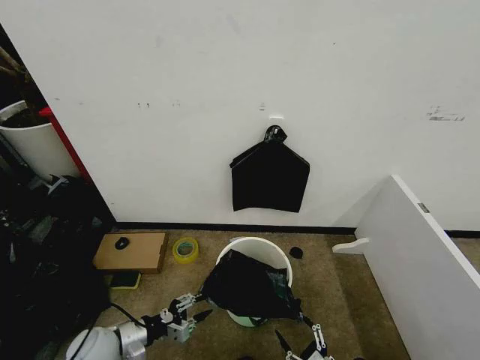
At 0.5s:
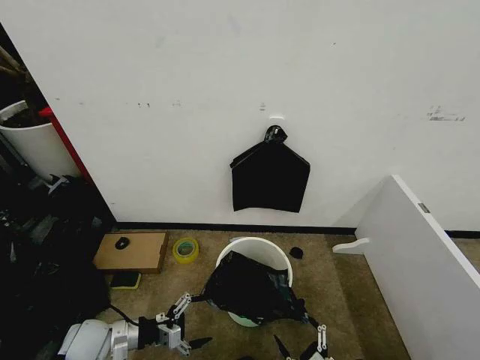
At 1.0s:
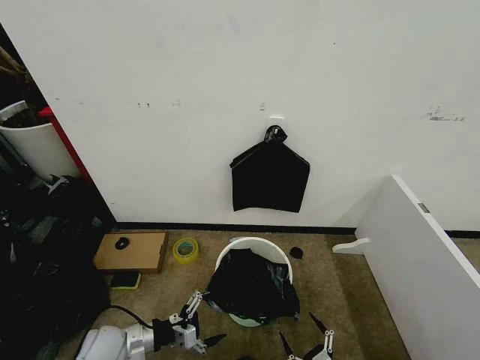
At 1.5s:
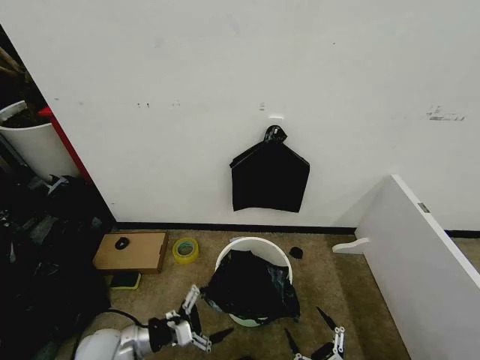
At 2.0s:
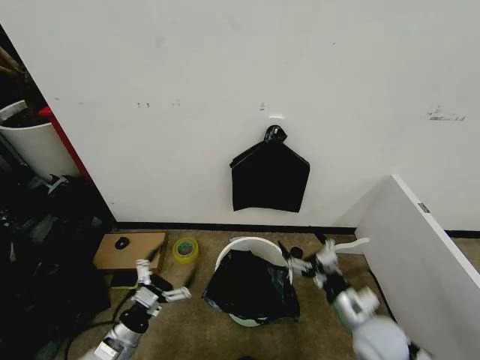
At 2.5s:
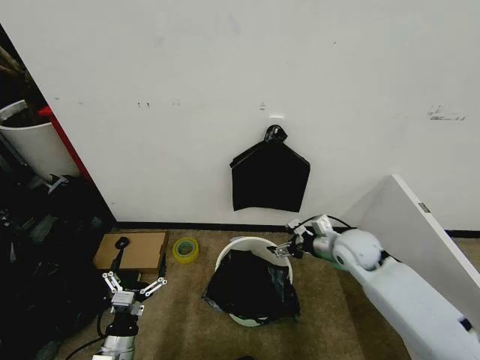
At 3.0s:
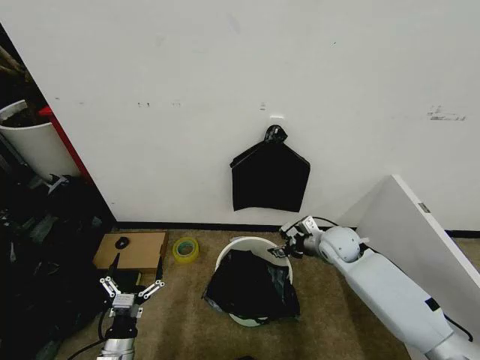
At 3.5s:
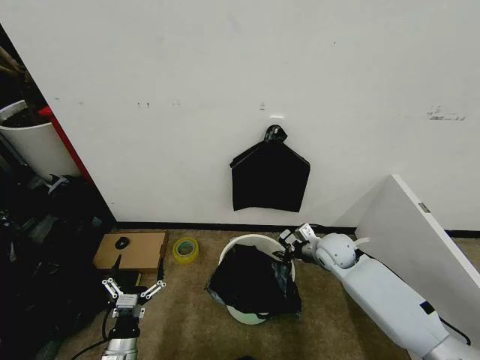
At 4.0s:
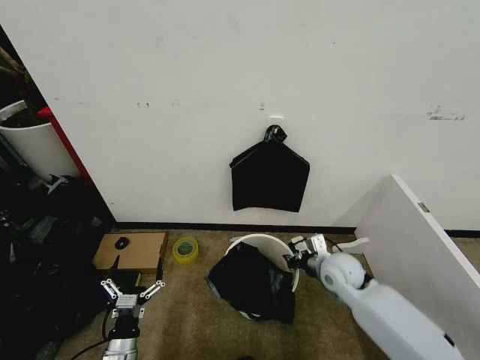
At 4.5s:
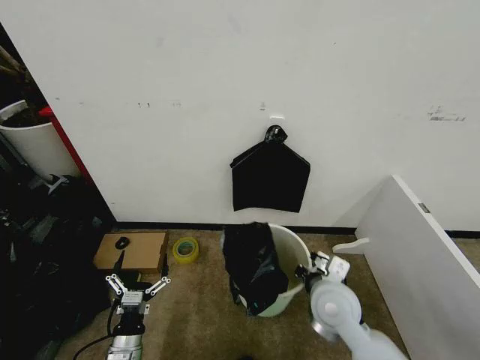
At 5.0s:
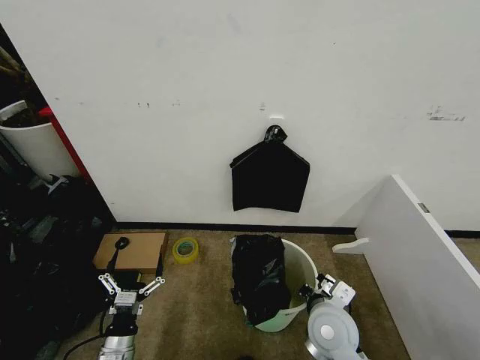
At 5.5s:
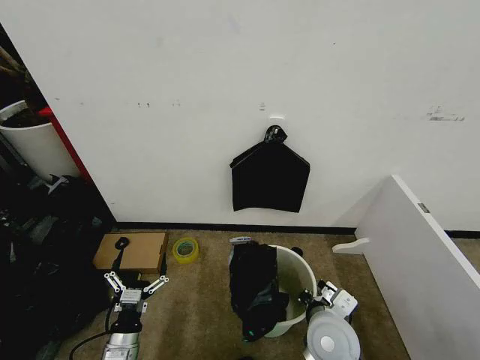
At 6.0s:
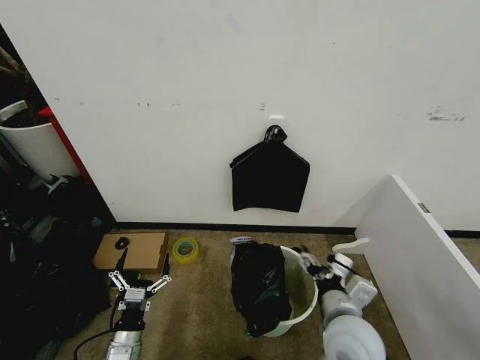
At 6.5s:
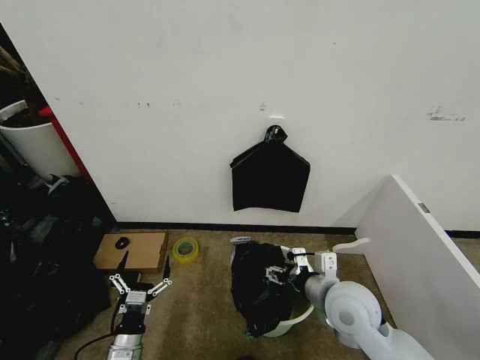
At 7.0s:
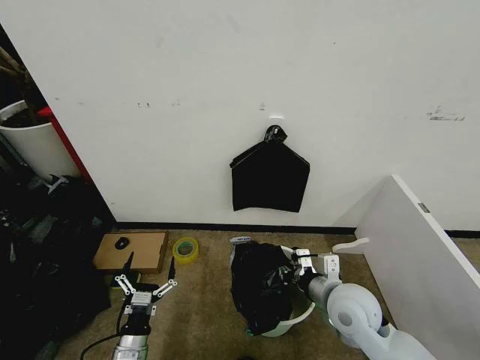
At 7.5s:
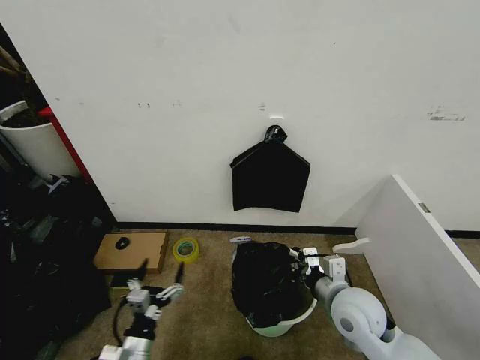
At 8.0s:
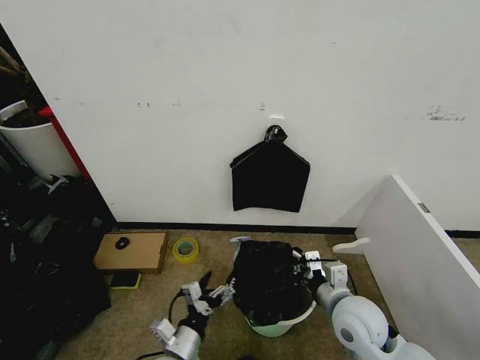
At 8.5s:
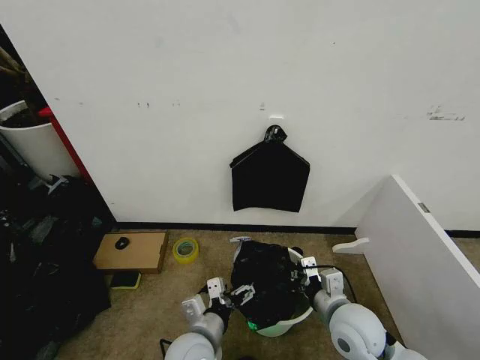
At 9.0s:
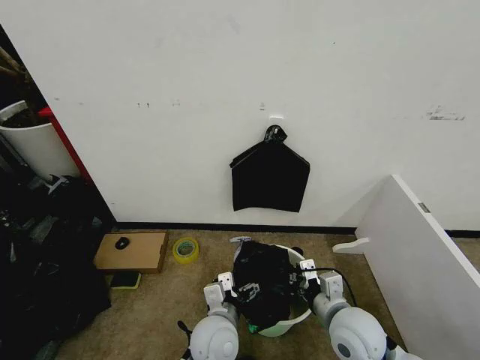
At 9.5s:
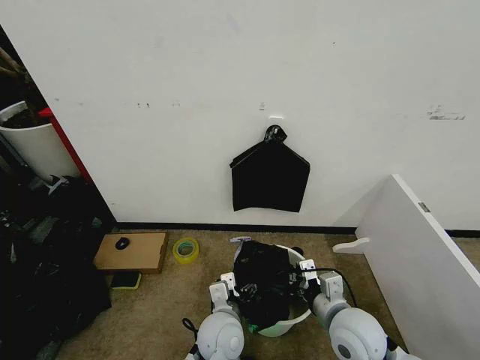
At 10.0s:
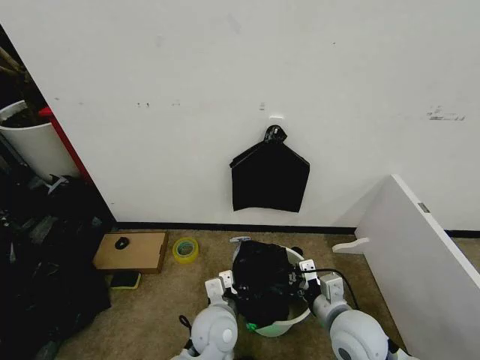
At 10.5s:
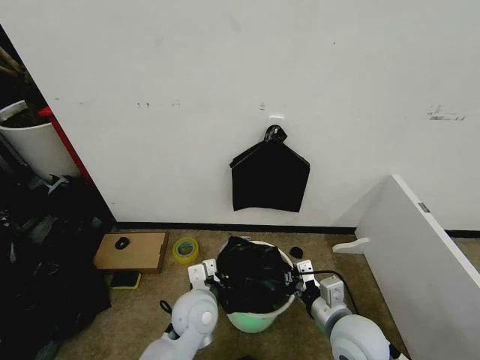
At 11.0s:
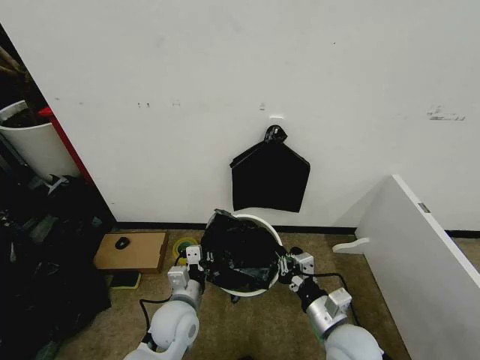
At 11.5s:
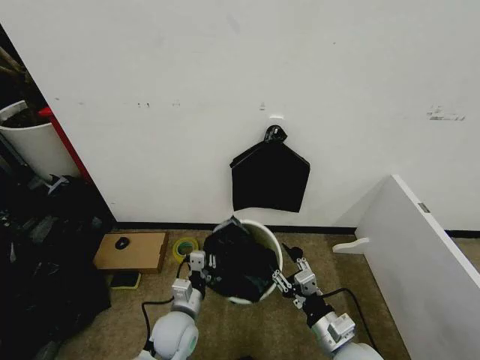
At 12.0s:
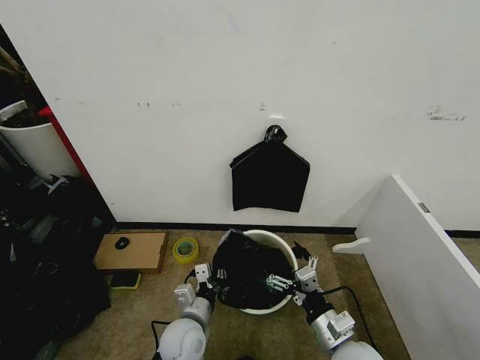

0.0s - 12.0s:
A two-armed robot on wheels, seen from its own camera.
Task of the whole recording: Place the garbage bag over the trash bin.
0.0s - 2.0s: The right gripper travels upward and forward by approximately 25 cm. Meanwhile the left gripper opens.
2.0s - 4.0s: The right gripper shifts roughly 10 cm forward, and closes.
4.0s - 6.0s: The right gripper moves backward, approximately 15 cm, and opens up.
6.0s - 8.0s: The right gripper ends up approximately 5 cm from where it was, and closes its fingers. Meanwhile the left gripper travels to the right and upward by some 15 cm.
8.0s - 10.0s: The left gripper goes roughly 15 cm to the right and forward, and closes.
10.0s - 12.0s: The left gripper shifts about 5 cm to the left; the right gripper changes place by some 5 cm, and opens.

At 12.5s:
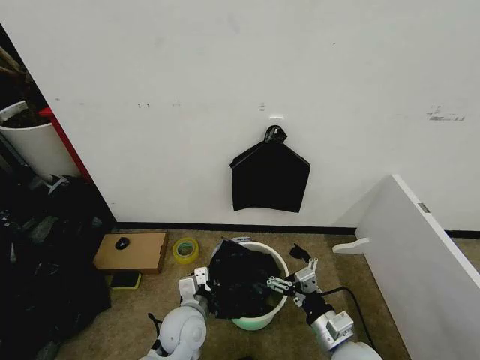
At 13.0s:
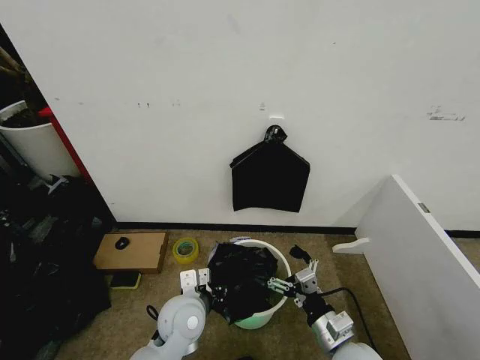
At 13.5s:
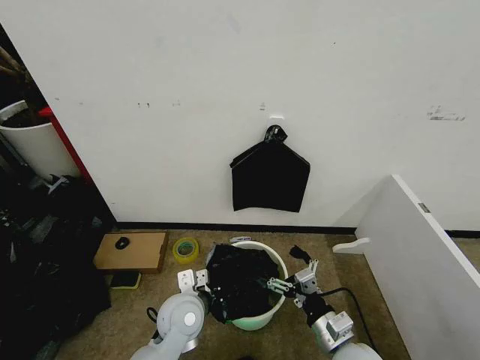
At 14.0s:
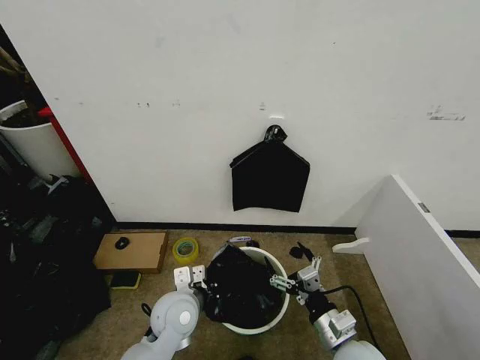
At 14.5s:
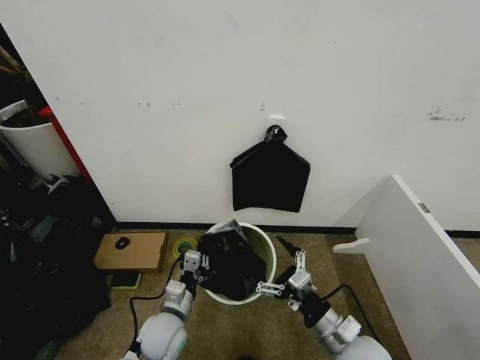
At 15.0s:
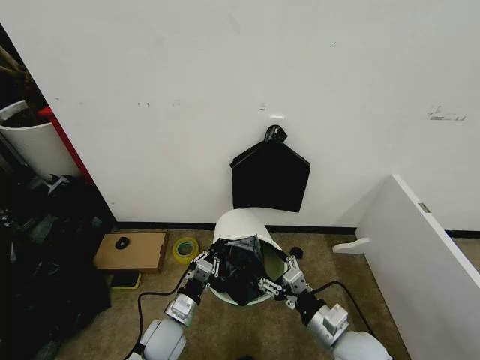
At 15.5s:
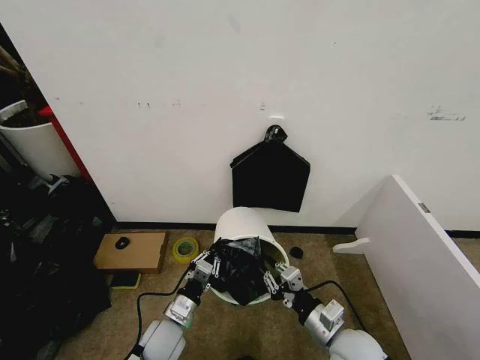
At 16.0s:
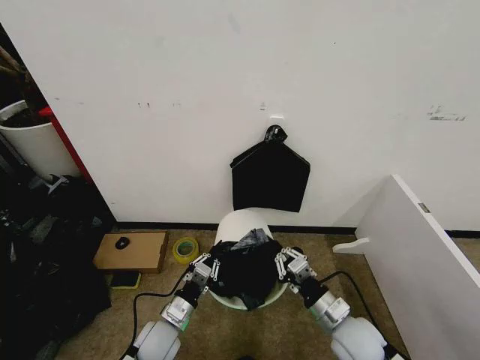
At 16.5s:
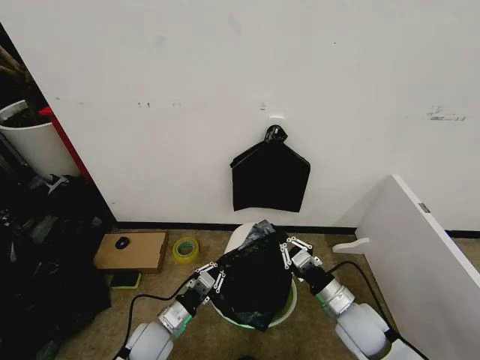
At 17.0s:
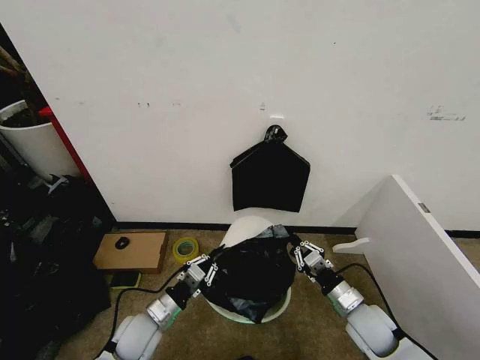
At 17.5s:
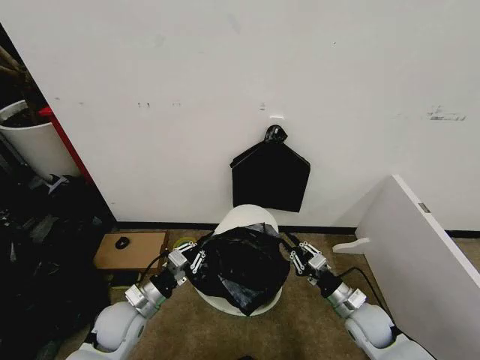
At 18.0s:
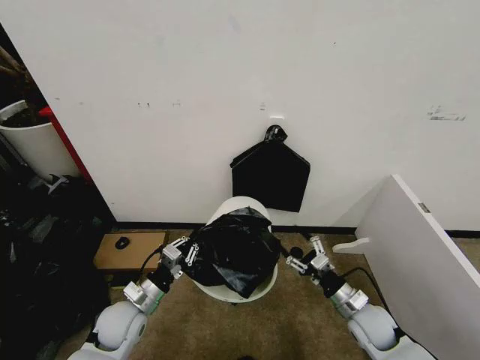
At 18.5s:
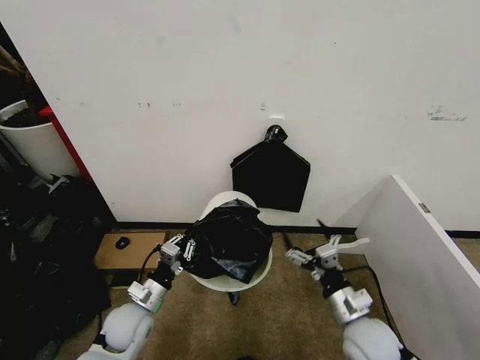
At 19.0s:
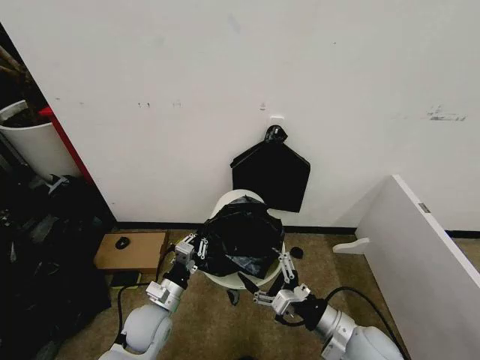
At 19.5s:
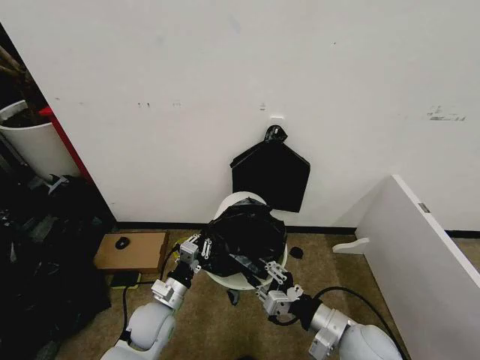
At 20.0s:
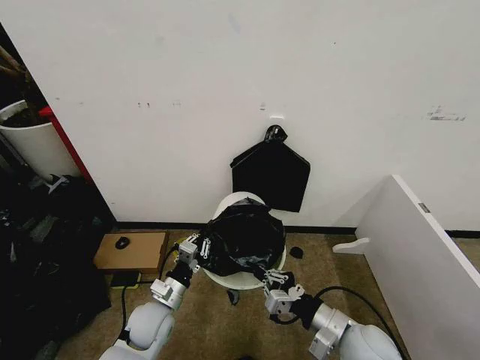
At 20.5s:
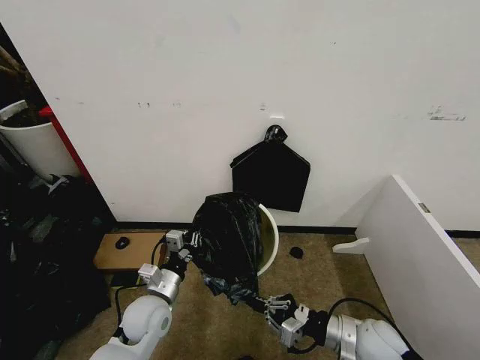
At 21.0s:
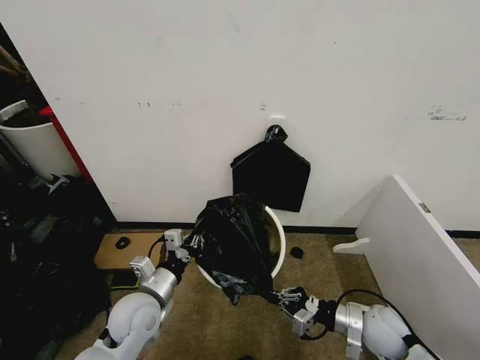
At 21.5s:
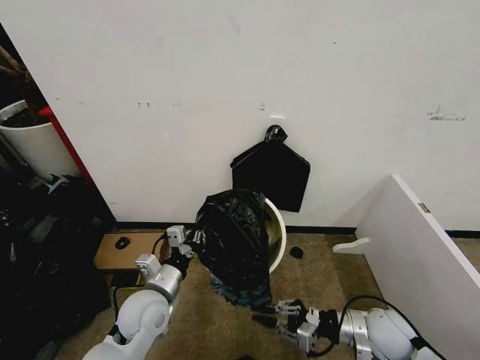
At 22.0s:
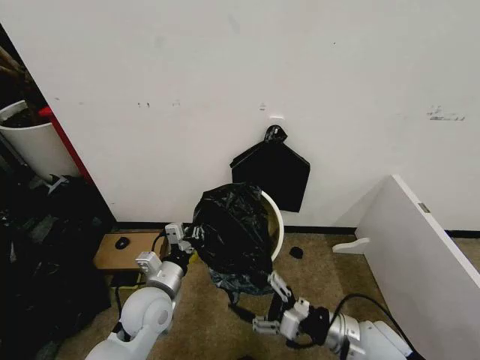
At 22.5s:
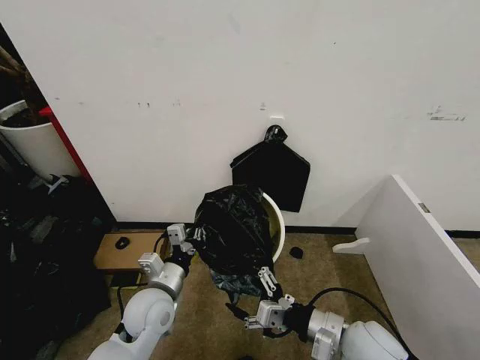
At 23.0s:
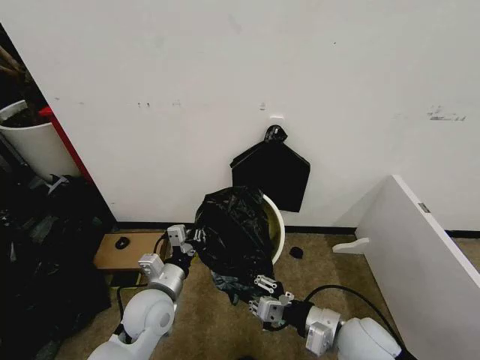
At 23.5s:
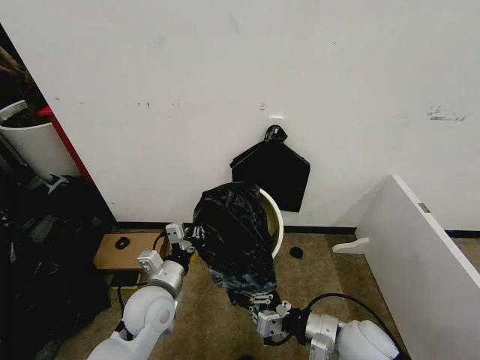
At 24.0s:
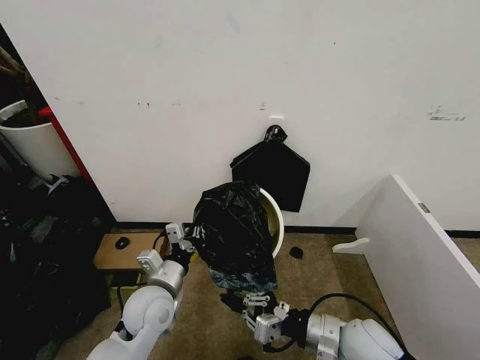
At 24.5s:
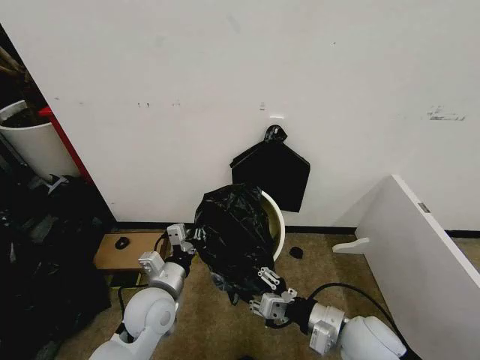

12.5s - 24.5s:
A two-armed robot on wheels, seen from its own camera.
Task of the whole recording: Place the garbage bag over the trash bin.
12.5s - 14.5s: The left gripper shifts some 5 cm to the left, and opens, then closes again.
14.5s - 16.5s: The left gripper ends up some 5 cm from where it was; the right gripper moves forward, about 5 cm, and closes its fingers.
16.5s - 18.5s: The left gripper shifts by approximately 5 cm; the right gripper reaches approximately 5 cm downward, then returns, and opens its fingers.
18.5s - 20.5s: The left gripper changes place by about 5 cm, while the right gripper closes its fingers.
20.5s - 22.5s: The left gripper changes place by roughly 5 cm. The right gripper shifts approximately 10 cm upward and to the left, and opens its fingers.
22.5s - 24.5s: The right gripper closes up.

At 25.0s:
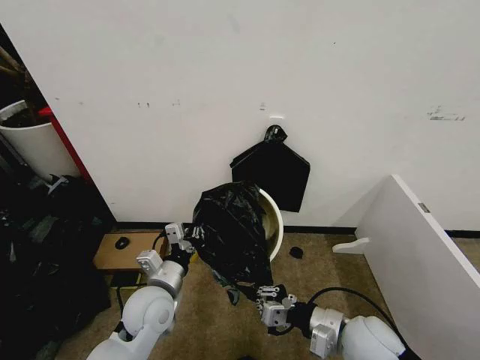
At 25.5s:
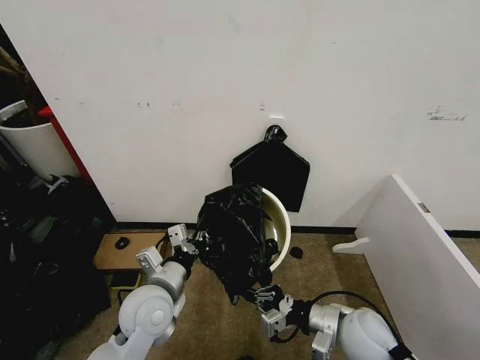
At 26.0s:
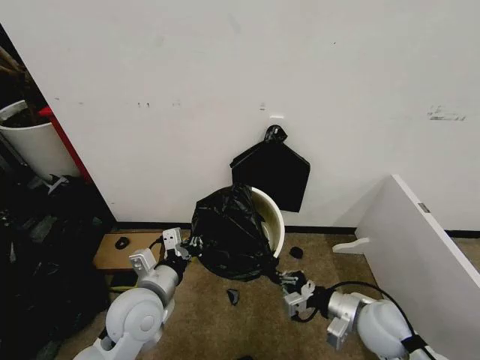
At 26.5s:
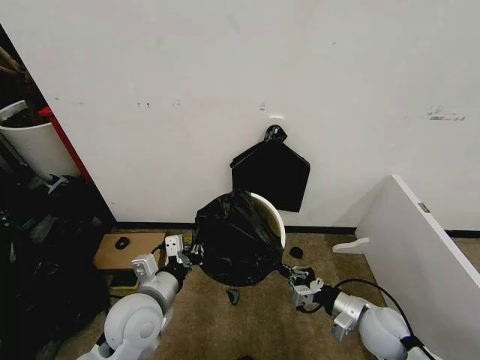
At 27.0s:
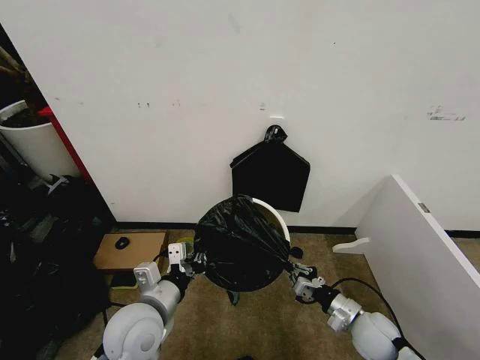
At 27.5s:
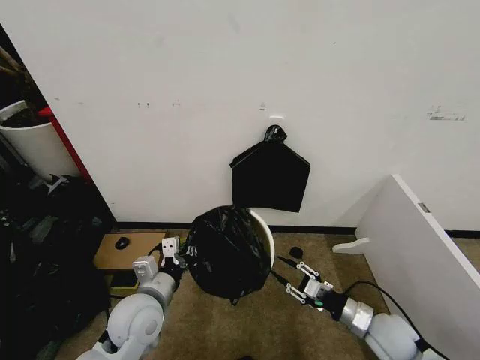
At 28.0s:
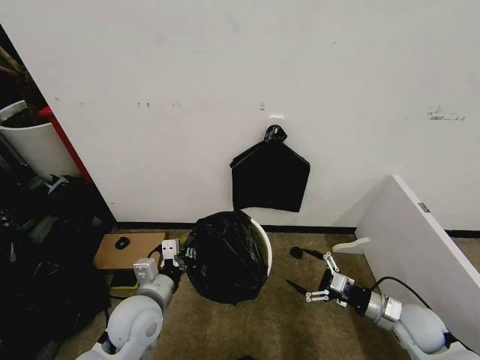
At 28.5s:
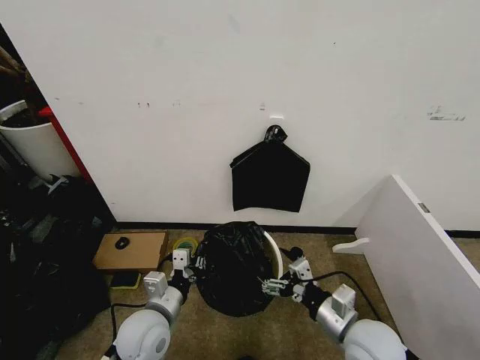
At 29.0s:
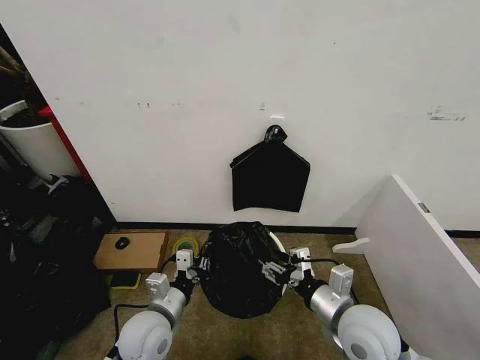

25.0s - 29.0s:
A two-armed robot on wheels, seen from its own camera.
Task of the whole recording: Place the garbage bag over the trash bin.
25.0s - 27.0s: The right gripper moves downward and to the right, roughly 15 cm. Meanwhile the left gripper moves about 5 cm.
27.0s - 29.0s: The right gripper heads upward and to the left, covering some 15 cm, and opens its fingers, while the left gripper heads downward, covering approximately 5 cm.
